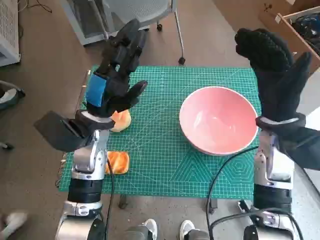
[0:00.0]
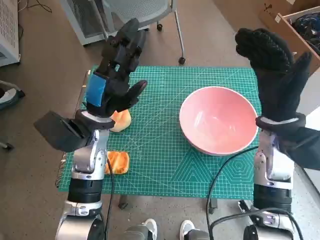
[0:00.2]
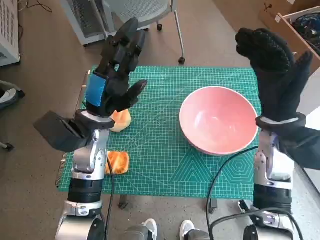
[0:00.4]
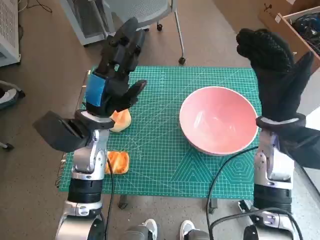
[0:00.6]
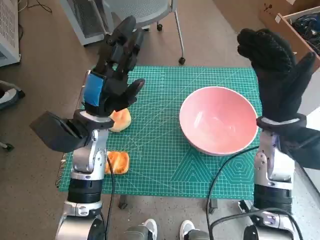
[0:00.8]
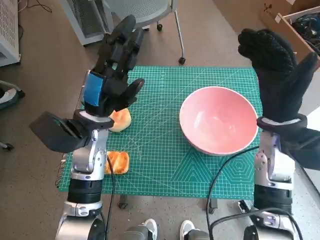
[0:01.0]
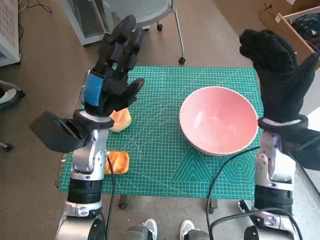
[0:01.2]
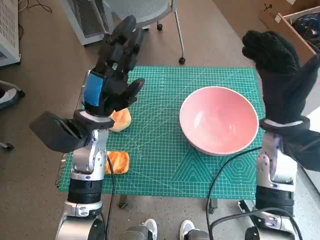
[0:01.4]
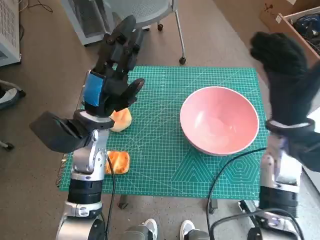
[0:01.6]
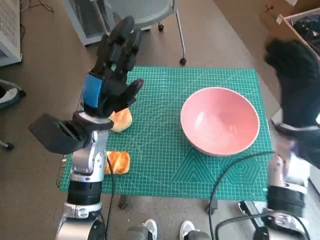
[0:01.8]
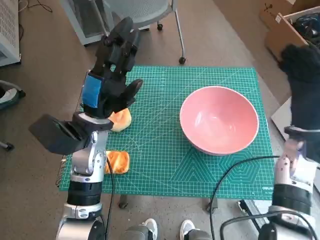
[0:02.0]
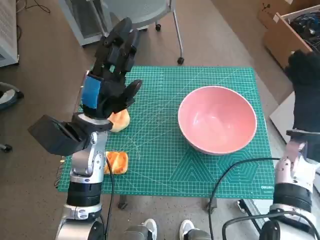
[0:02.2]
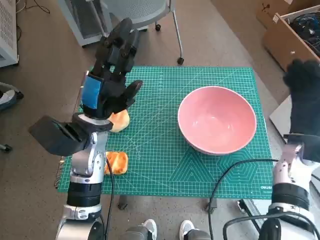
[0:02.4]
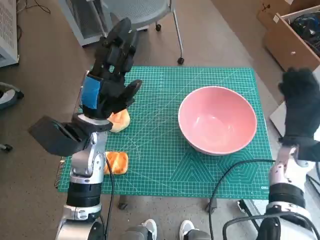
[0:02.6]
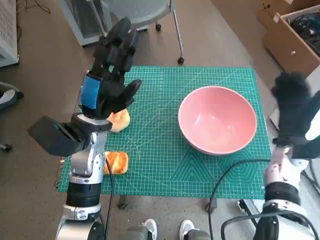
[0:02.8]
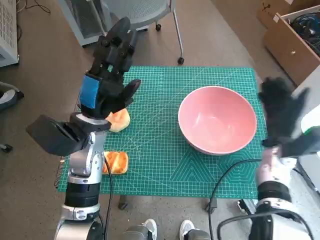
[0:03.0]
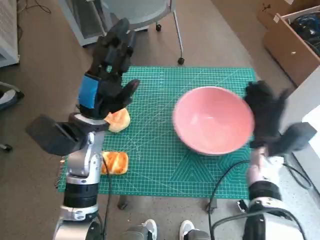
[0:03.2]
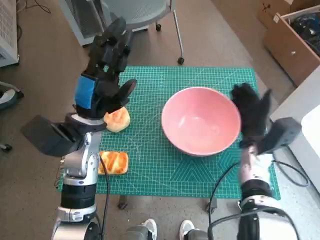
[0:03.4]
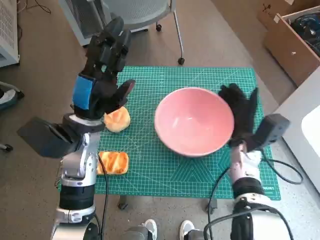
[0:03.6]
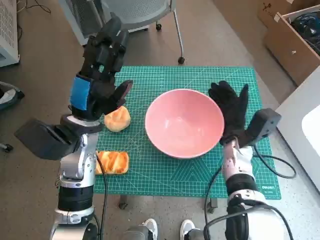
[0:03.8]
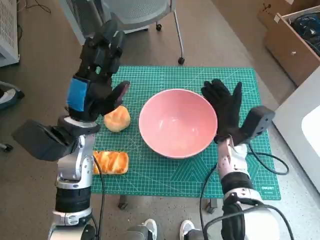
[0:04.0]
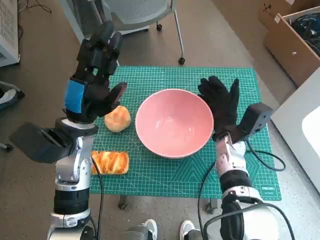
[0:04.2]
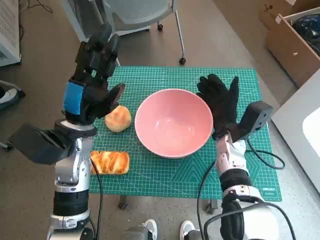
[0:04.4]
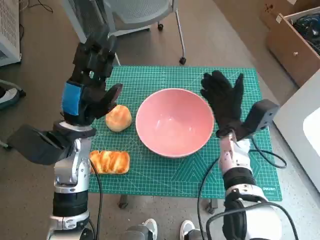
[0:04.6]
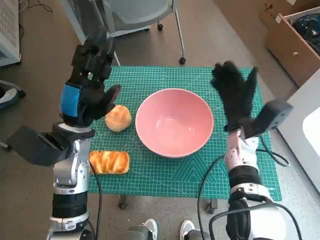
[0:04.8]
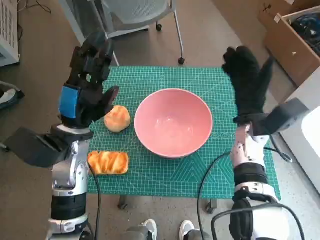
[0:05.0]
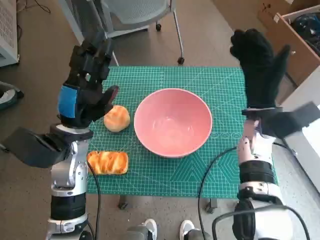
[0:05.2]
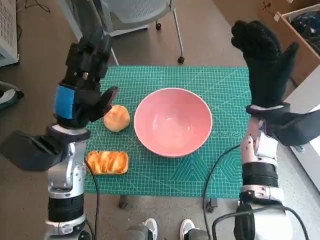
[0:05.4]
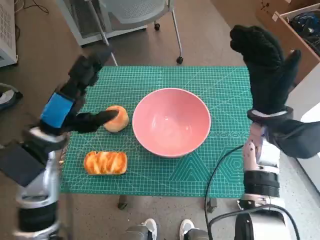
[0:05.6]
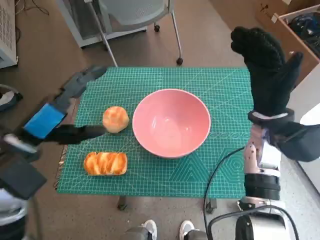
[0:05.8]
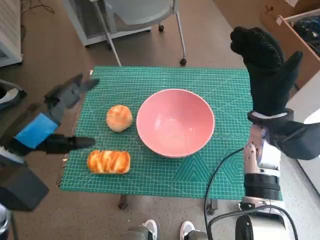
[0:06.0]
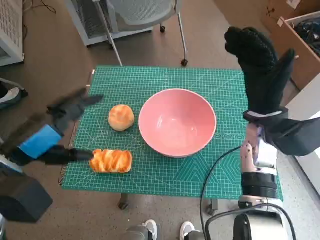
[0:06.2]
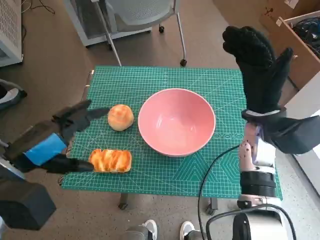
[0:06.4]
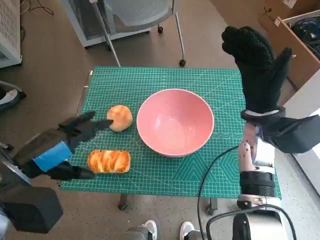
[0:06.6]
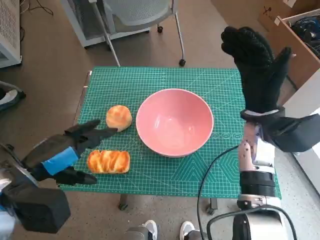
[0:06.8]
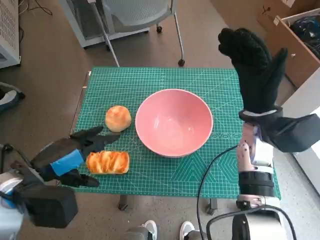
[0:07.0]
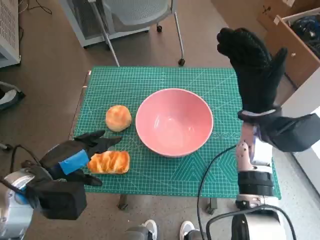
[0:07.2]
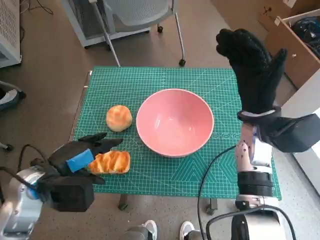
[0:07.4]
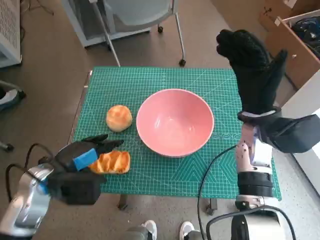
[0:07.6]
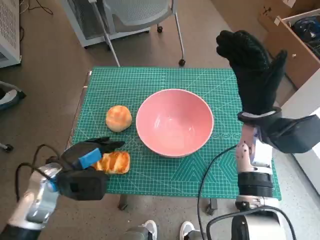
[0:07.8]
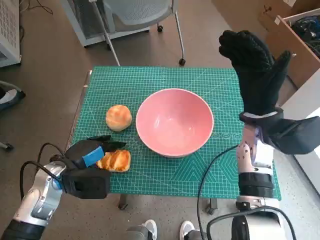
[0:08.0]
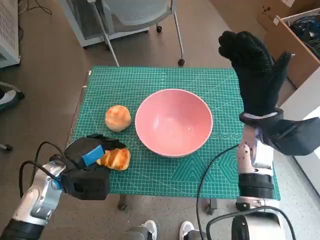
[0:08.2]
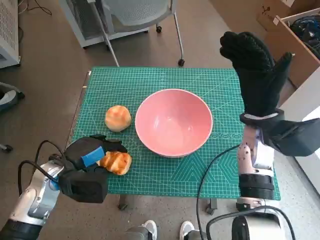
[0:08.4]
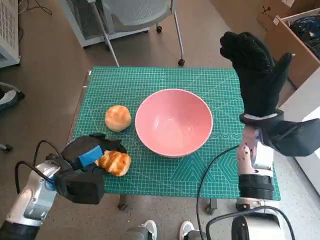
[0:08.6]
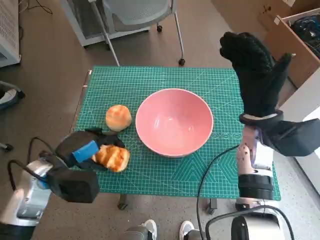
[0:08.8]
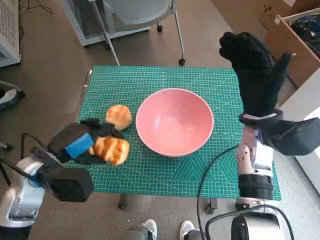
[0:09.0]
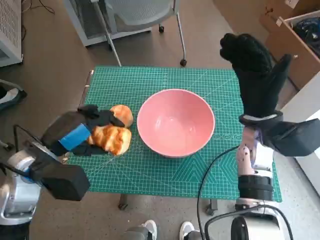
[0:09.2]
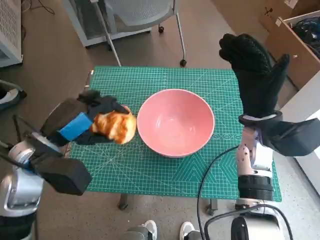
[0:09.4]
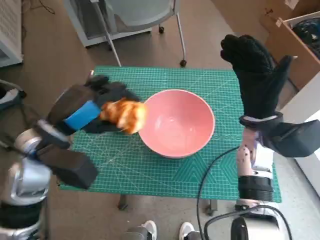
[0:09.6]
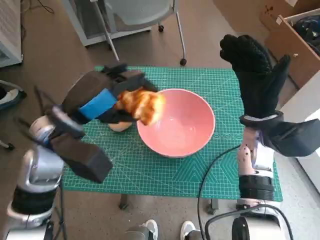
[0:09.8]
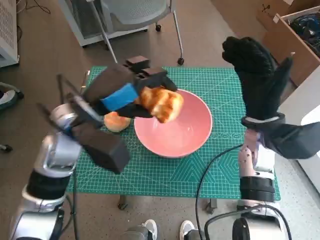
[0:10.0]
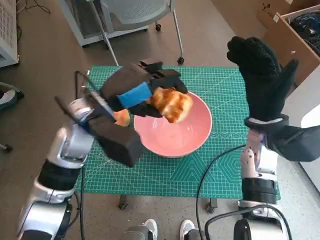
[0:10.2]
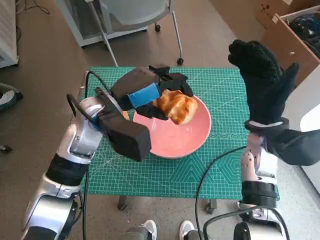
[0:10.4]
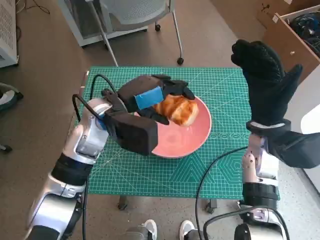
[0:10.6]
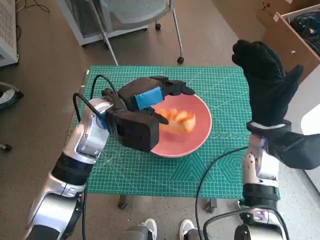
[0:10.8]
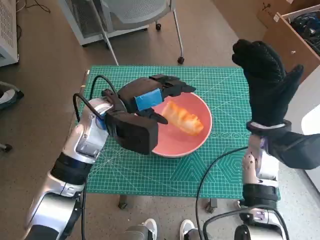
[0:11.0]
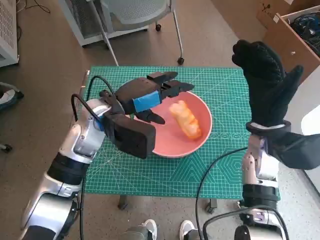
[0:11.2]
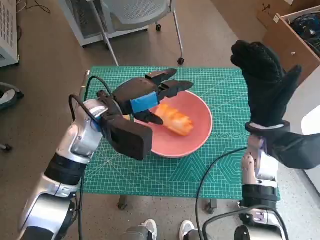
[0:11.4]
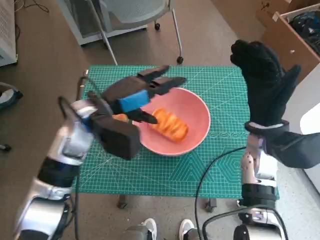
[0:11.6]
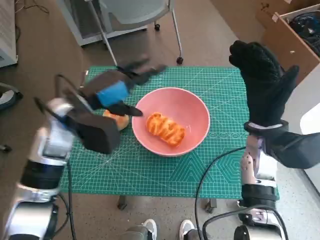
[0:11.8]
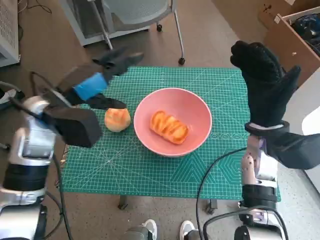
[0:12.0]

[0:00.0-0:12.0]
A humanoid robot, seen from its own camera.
Step, 0:00.0 to 0:04.6: Move the pink bowl to the center of table with right hand.
Step, 0:04.8 to 0:08.2: Grasp the long bread with left hand.
Step, 0:08.4 to 0:11.0: Place the long bread in pink bowl with left hand.

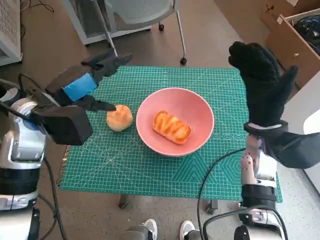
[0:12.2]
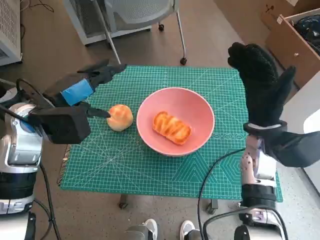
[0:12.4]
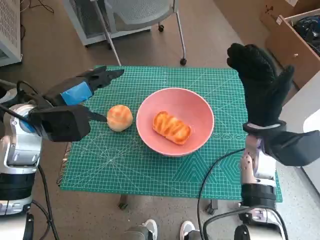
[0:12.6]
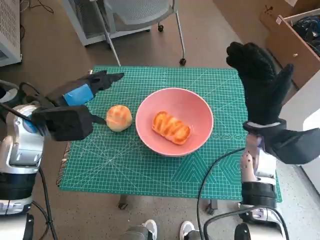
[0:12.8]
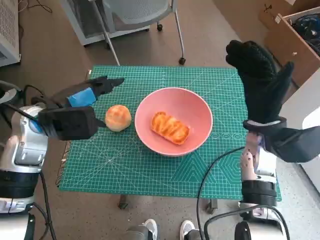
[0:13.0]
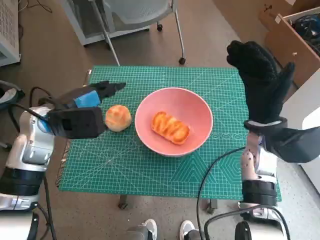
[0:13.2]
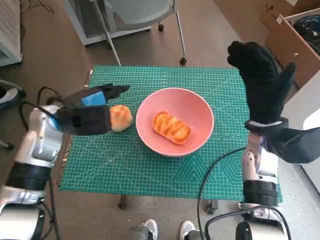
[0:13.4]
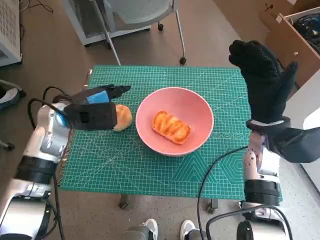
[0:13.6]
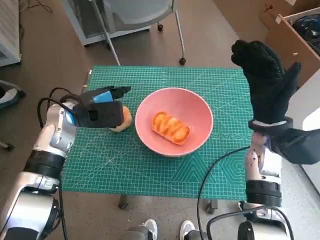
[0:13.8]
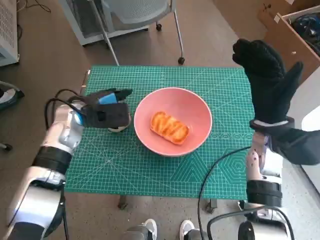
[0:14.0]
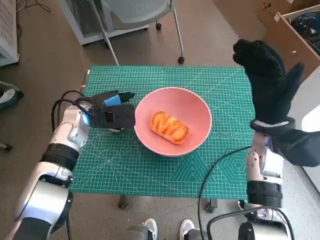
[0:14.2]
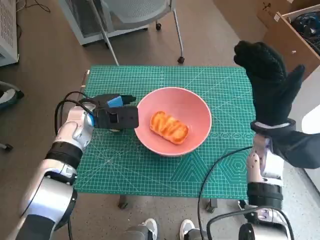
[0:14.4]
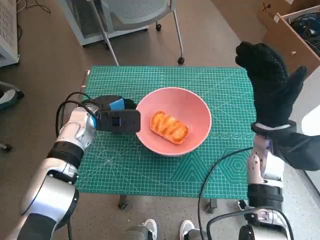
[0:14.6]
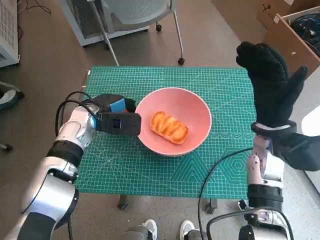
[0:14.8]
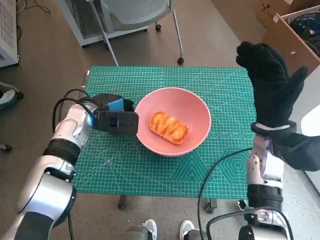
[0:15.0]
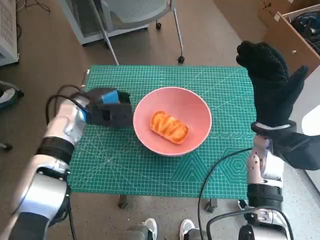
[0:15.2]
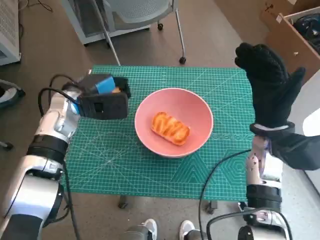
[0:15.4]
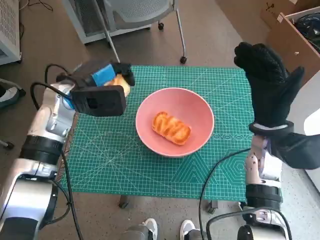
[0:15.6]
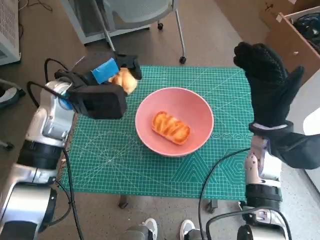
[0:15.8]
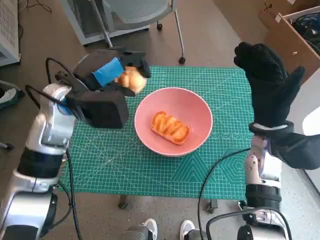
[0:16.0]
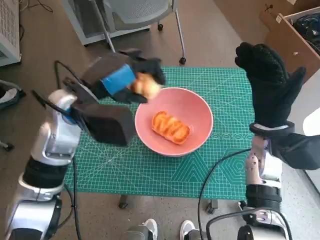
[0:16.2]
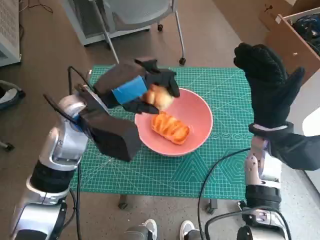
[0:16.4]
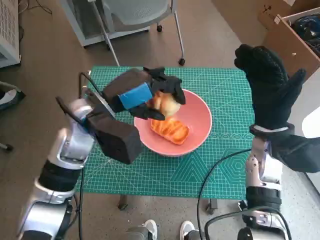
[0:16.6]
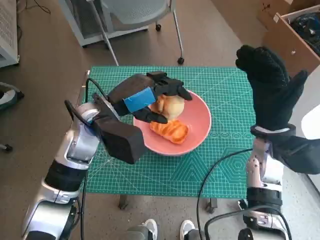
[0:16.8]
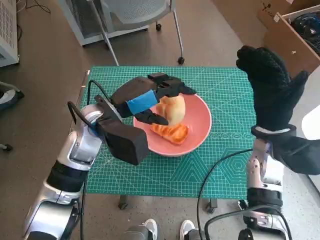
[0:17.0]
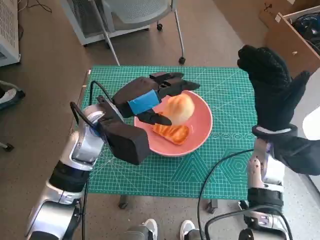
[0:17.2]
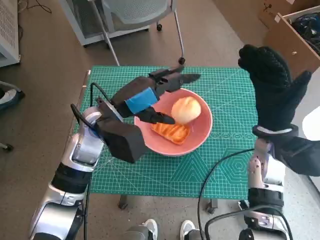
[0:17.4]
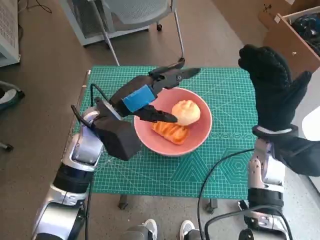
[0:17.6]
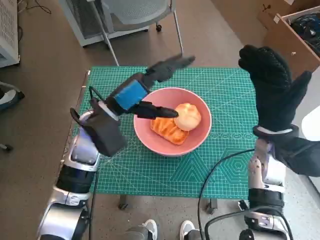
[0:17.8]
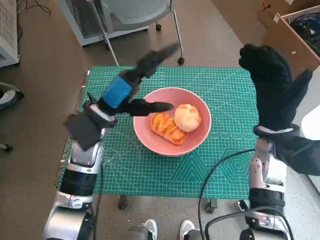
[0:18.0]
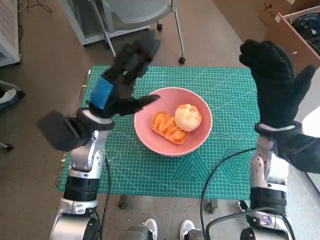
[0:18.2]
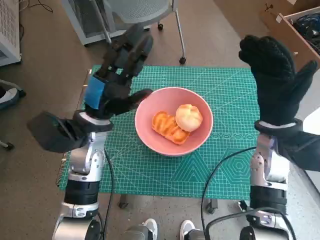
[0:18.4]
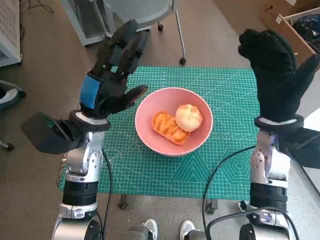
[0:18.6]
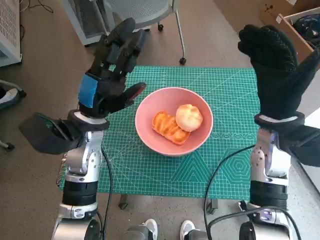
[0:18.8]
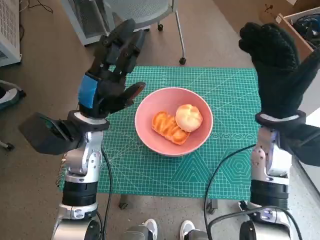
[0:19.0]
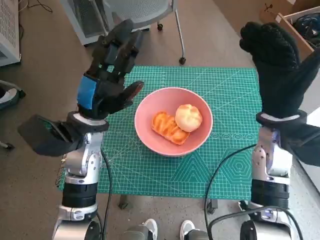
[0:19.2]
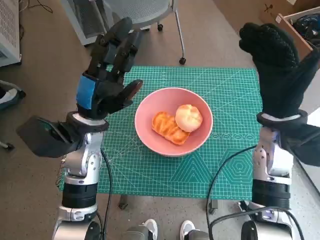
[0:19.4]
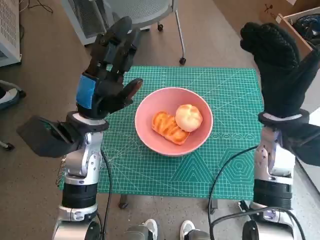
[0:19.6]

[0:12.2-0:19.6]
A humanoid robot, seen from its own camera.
Step, 0:12.2 to 0:14.8: Grasp the round bread with left hand.
Step, 0:15.0 to 0:17.4: Place the round bread in pink bowl with left hand.
